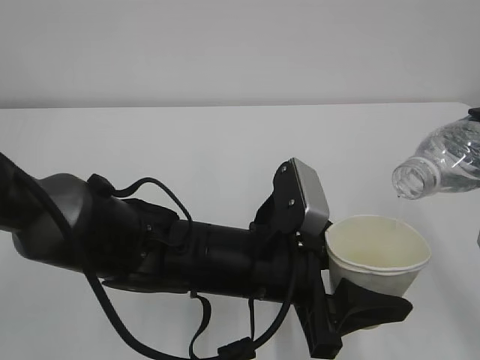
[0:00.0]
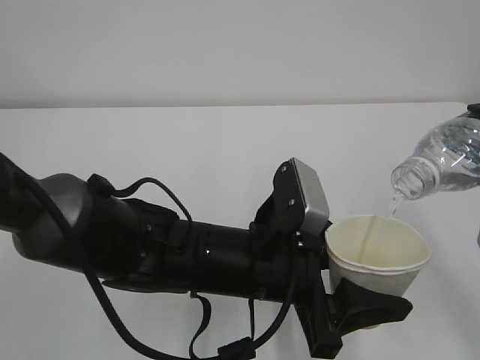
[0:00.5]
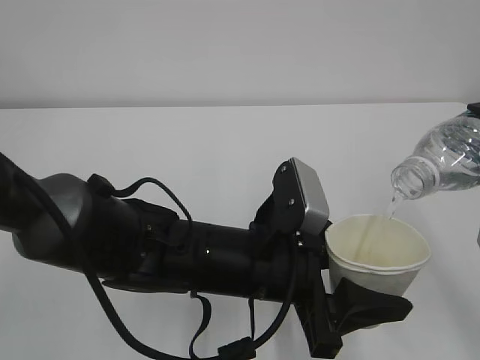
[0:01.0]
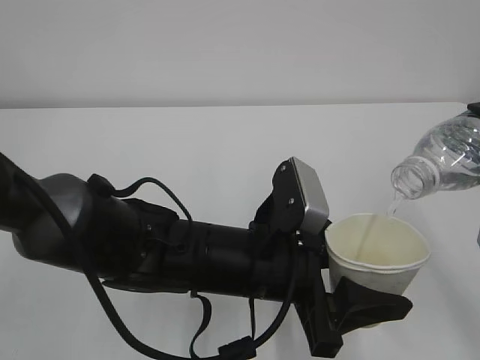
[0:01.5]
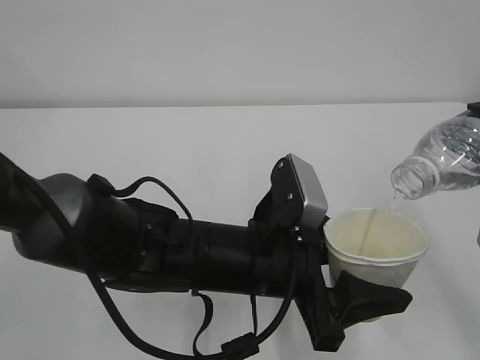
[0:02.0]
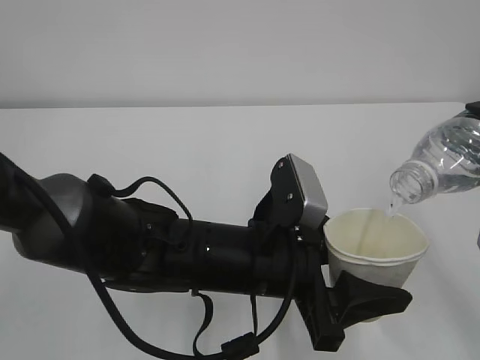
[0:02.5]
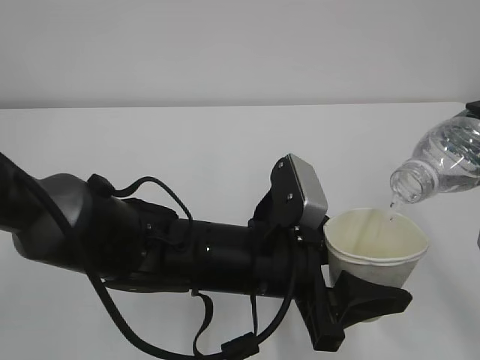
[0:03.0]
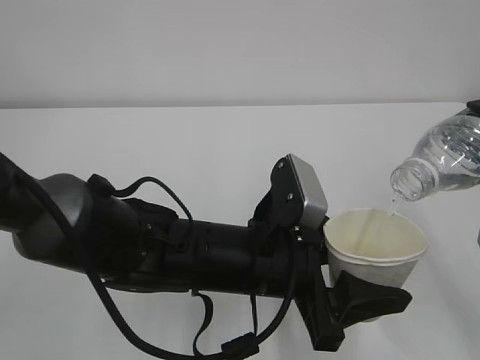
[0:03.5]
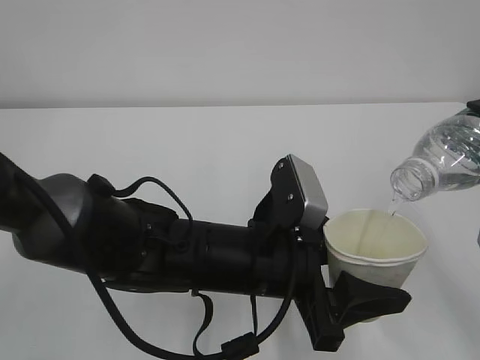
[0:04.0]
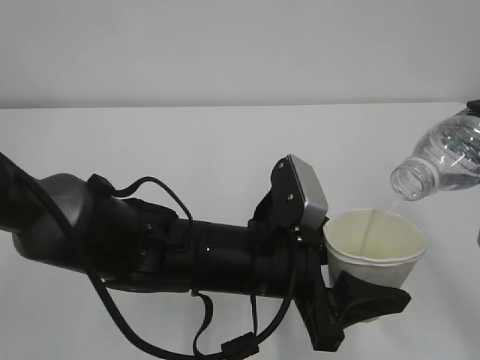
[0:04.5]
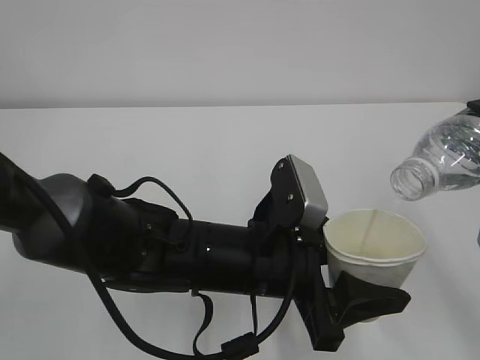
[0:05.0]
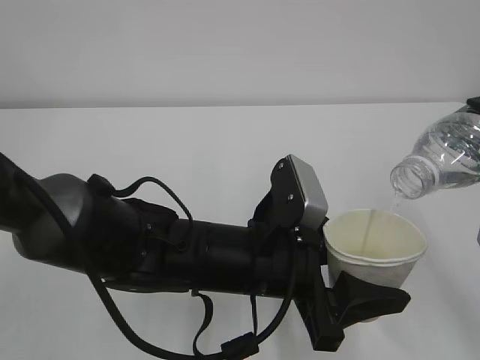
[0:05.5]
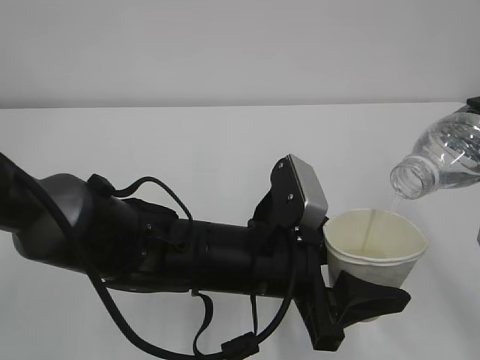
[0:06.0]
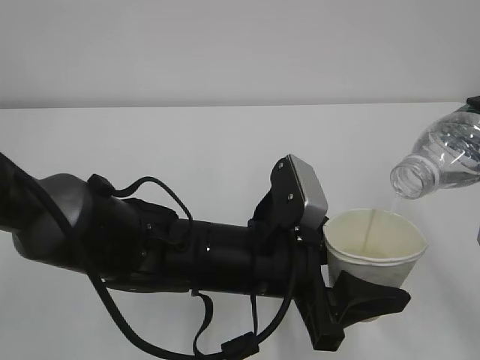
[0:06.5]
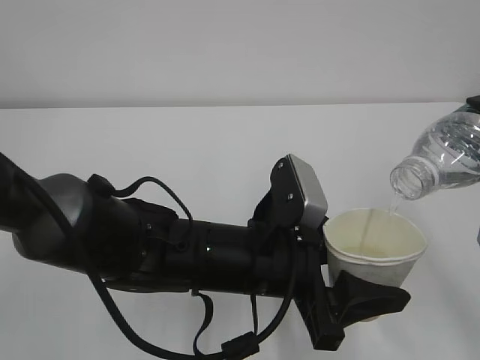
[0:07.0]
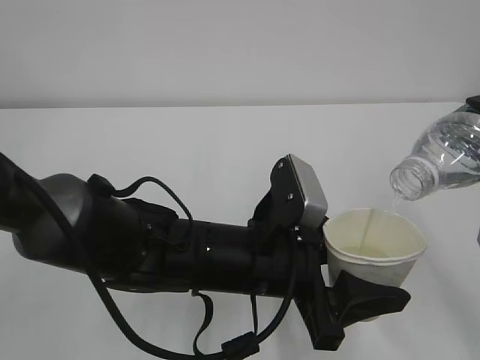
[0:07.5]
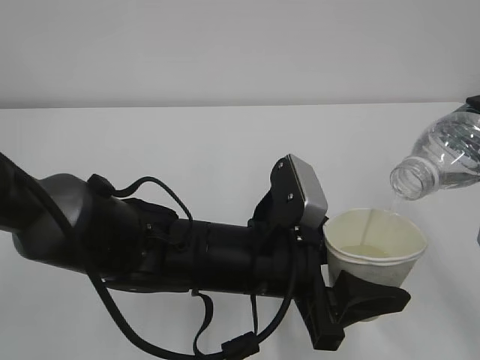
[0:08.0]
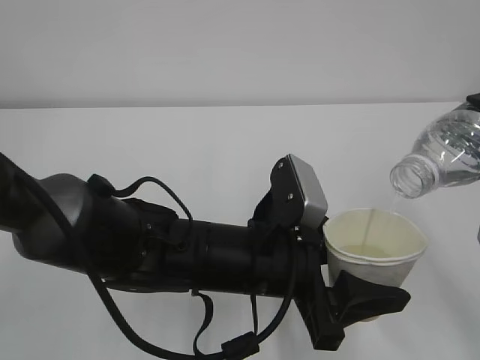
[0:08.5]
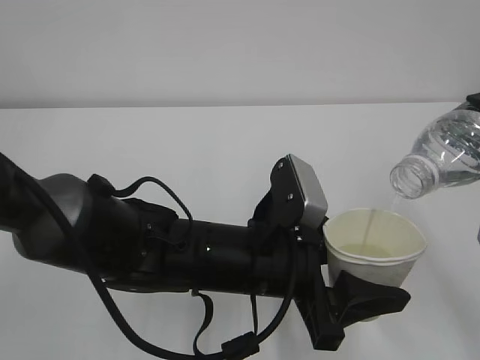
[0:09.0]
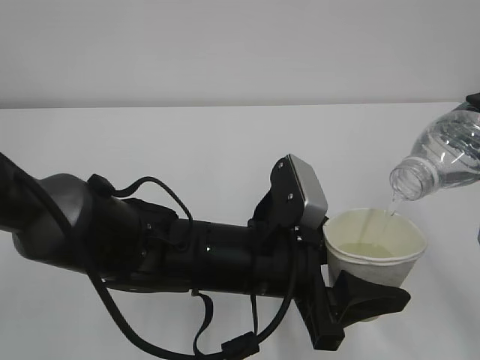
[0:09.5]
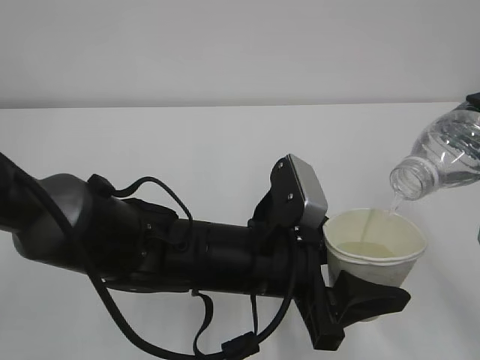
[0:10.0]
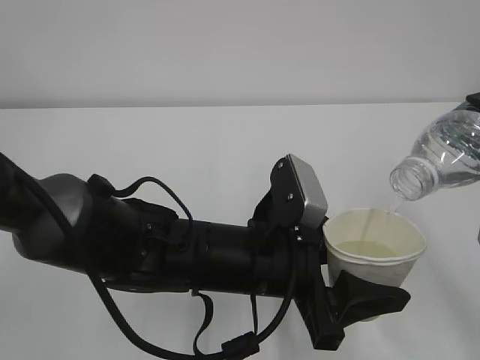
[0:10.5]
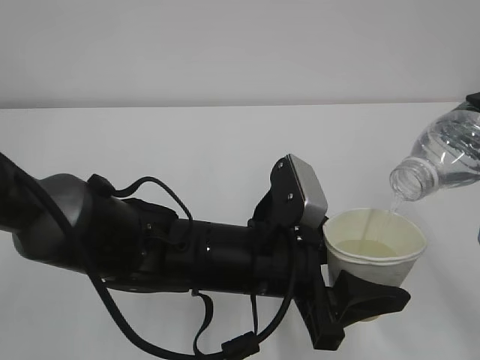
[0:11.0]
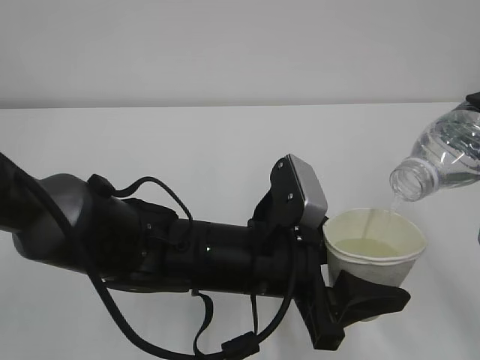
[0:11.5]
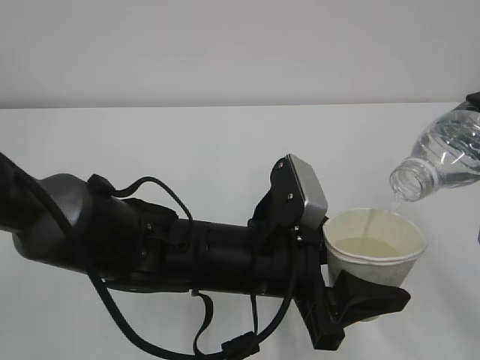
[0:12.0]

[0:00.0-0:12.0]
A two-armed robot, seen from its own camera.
0:00.0 to 0:06.0: Both grippers stay put.
0:06.0 to 0:12.0: Both grippers stay about where they are.

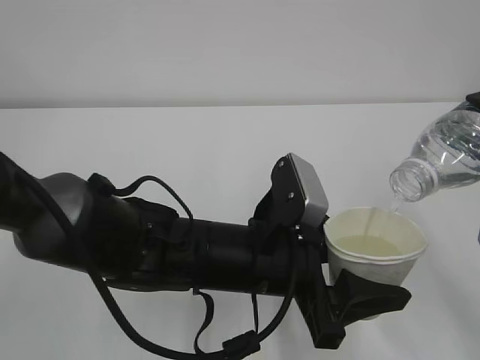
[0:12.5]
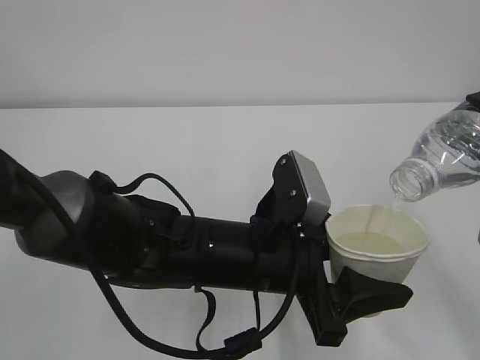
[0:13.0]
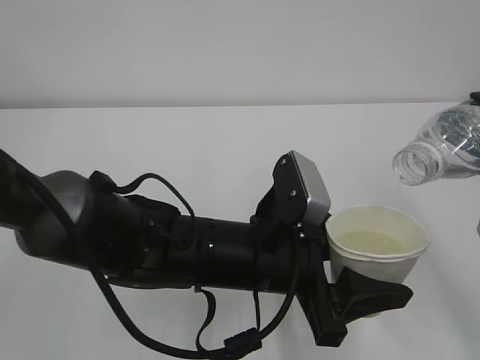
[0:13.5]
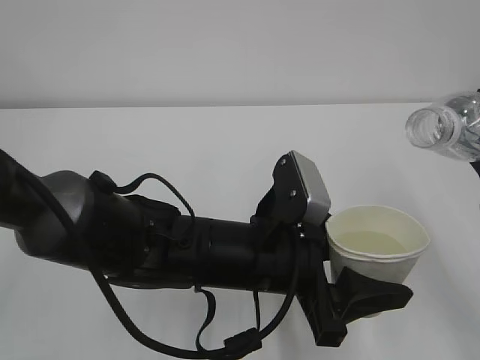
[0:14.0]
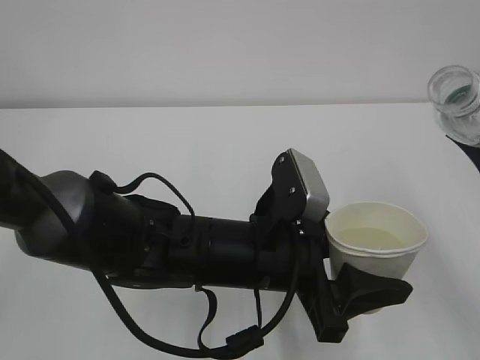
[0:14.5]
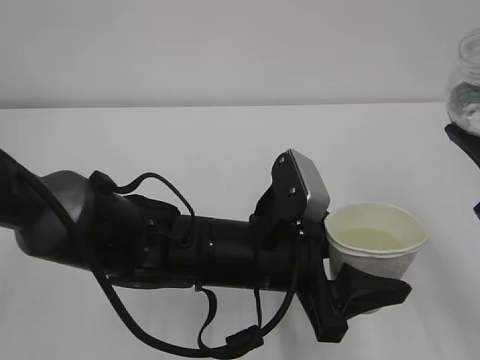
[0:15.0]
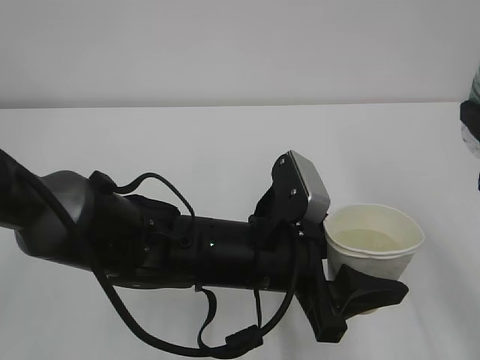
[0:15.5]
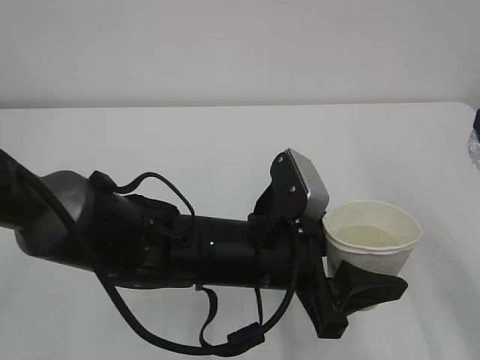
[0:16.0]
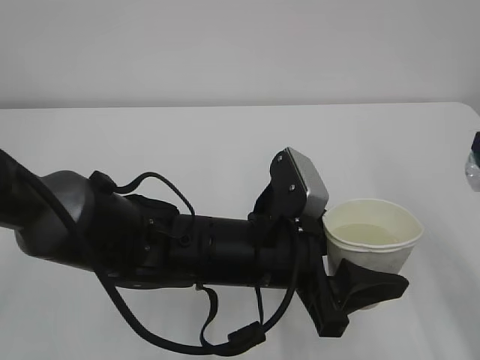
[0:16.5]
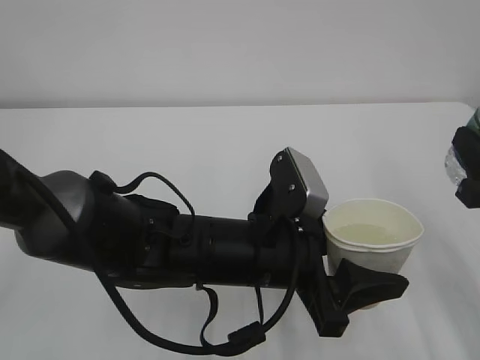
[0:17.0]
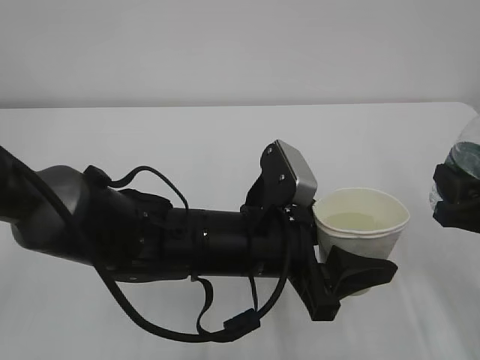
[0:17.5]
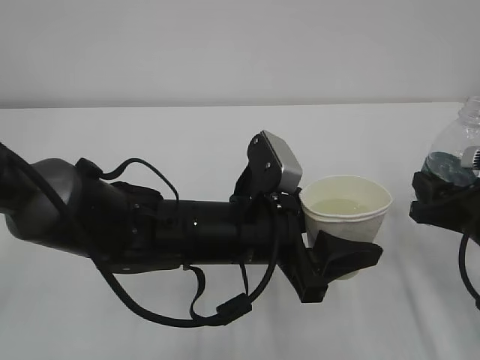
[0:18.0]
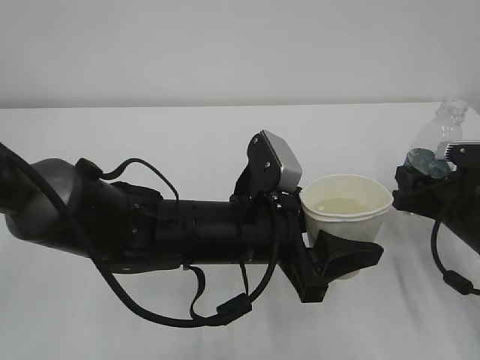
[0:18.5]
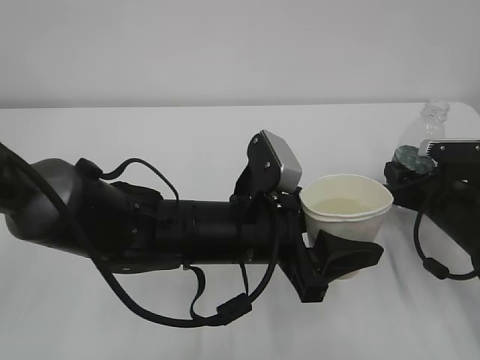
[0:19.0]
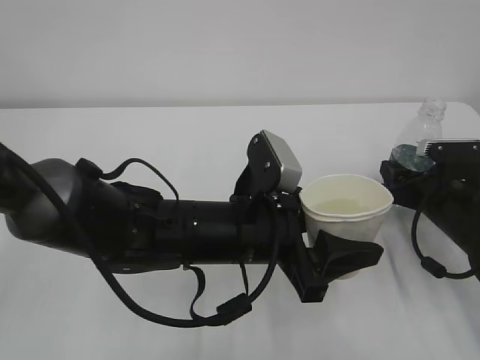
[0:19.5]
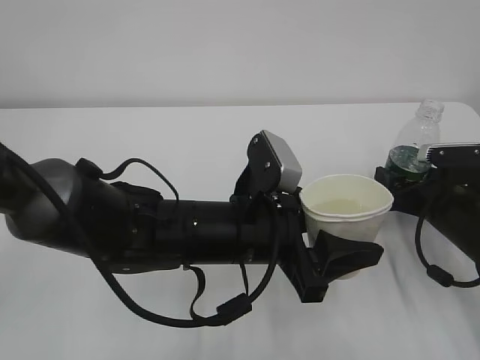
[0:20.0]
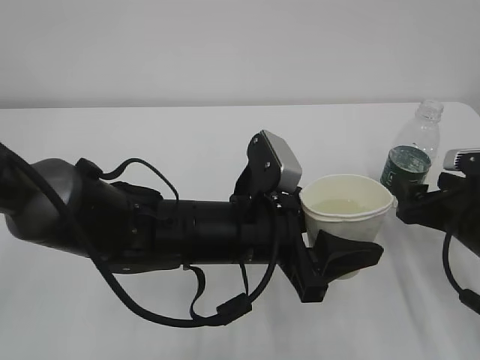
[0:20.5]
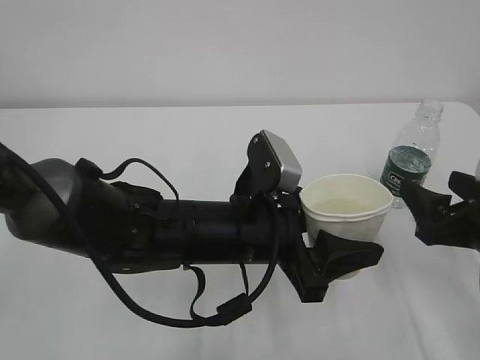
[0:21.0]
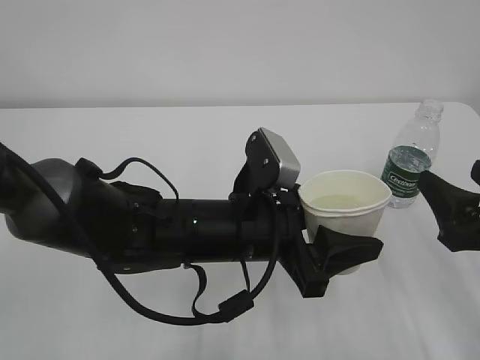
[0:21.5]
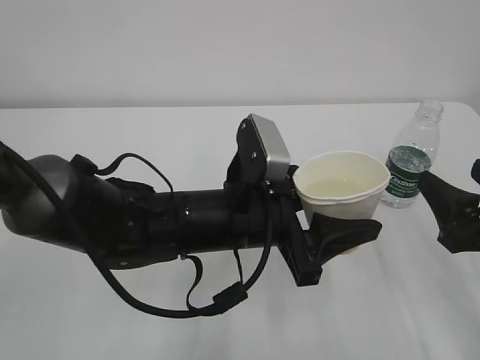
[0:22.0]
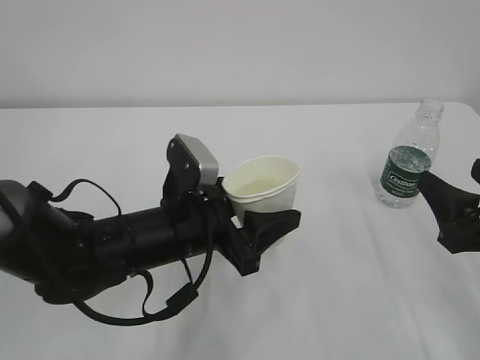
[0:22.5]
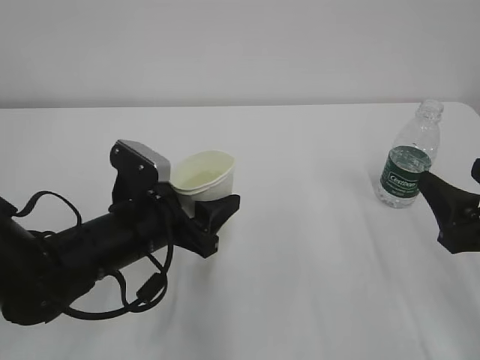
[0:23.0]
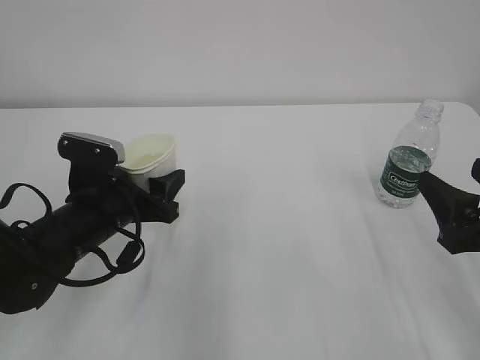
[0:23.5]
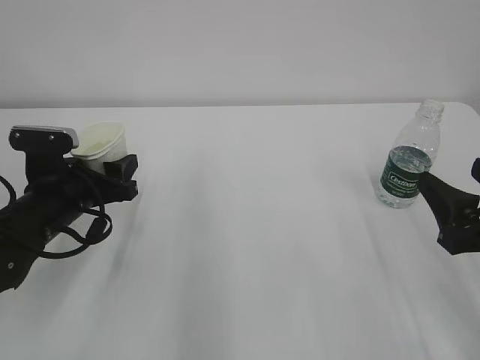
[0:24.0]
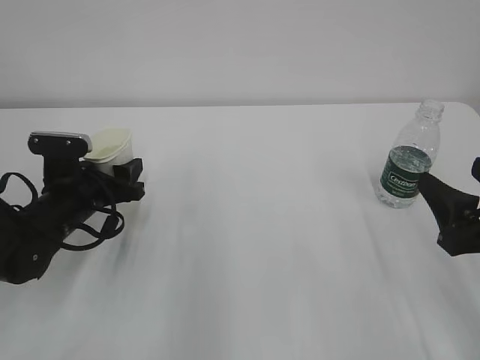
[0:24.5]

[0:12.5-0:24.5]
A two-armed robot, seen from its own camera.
0:16.5 to 0:18.5: The right gripper shifts about 20 cm downward and forward.
0:18.5 to 0:20.5: The right gripper opens.
0:20.5 to 0:22.5: The left gripper is displaced to the left by approximately 5 cm. Meanwhile the right gripper is displaced backward and upward by about 10 cm.
0:22.5 to 0:24.5: The left gripper shifts about 15 cm to the left and forward.

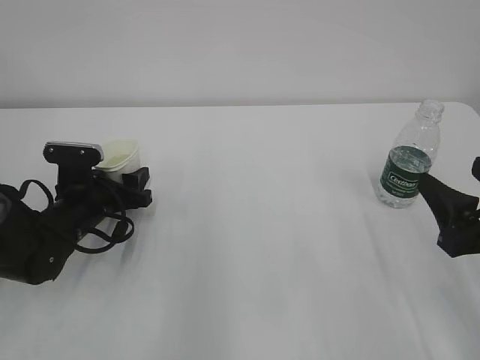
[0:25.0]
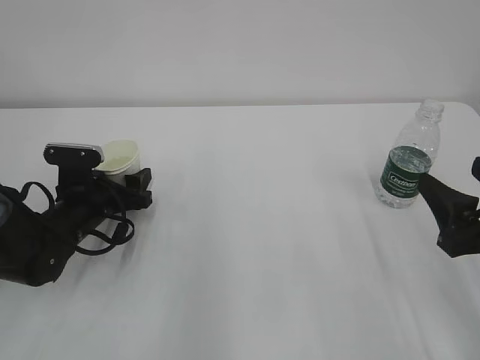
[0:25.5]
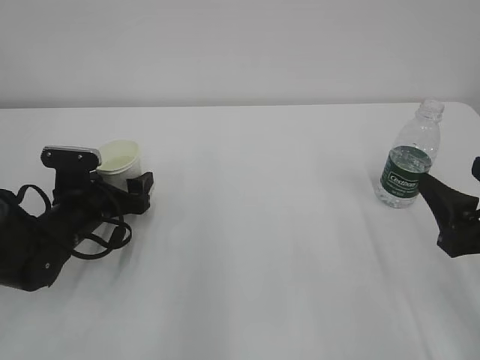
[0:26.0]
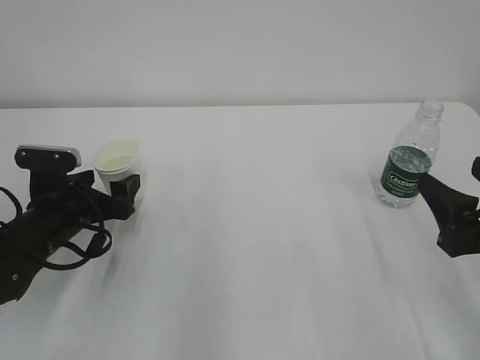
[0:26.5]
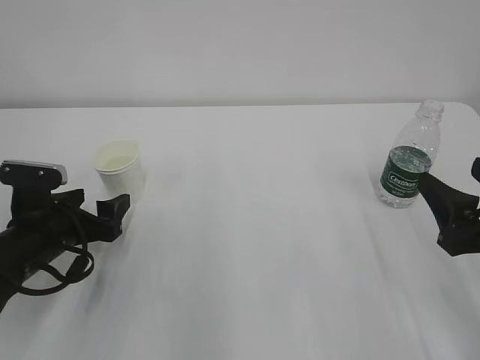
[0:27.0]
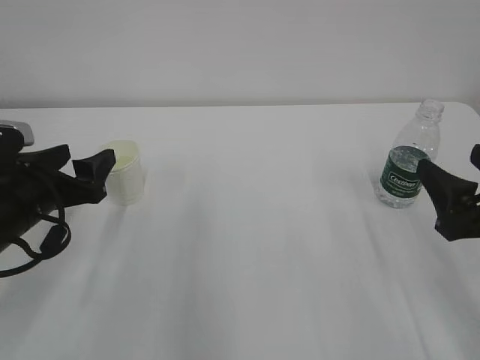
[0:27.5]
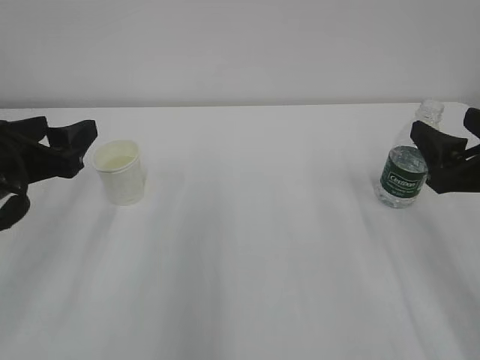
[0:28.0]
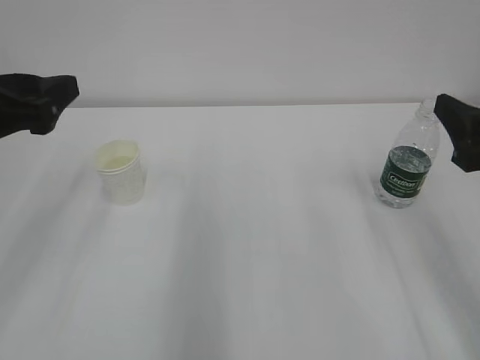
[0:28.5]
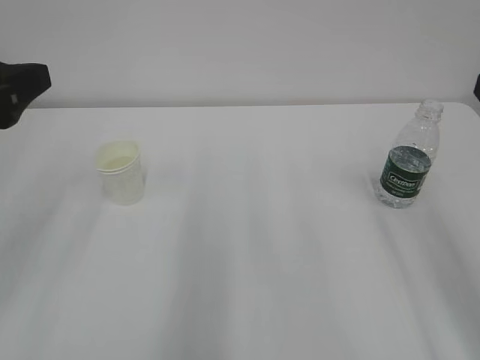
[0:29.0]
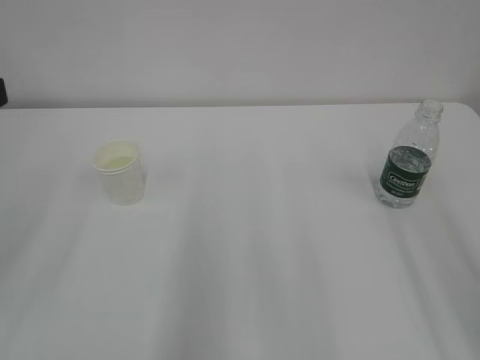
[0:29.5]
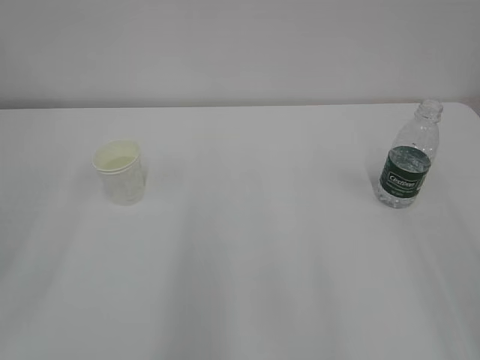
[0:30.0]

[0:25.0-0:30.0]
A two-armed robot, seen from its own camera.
0:25.0 to 0:27.5: The left gripper heads upward and backward, covering about 10 cm, and opens up.
0:27.5 to 0:30.0: The two grippers go about 20 cm upward and backward.
